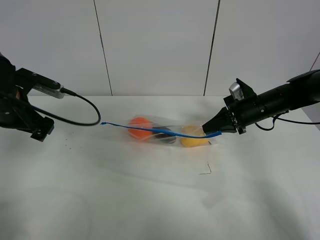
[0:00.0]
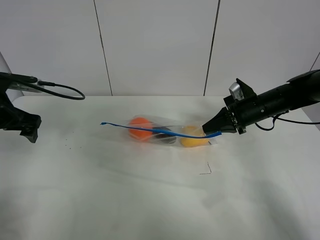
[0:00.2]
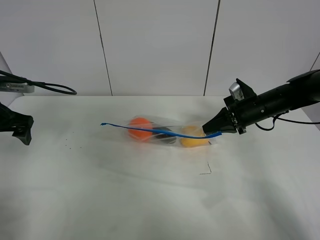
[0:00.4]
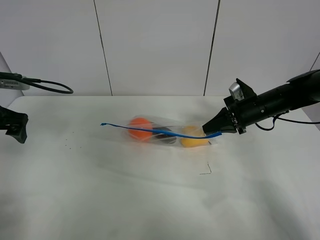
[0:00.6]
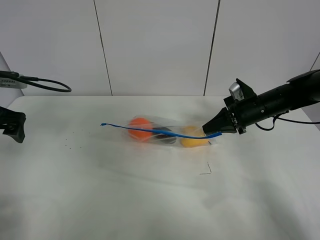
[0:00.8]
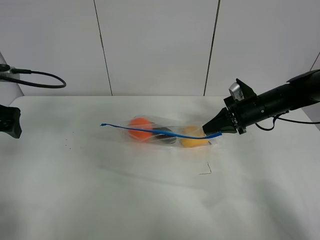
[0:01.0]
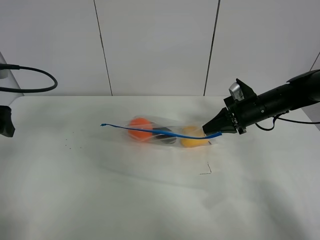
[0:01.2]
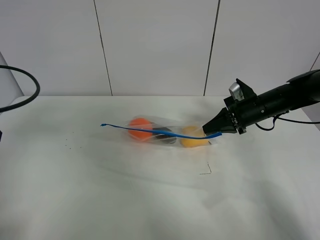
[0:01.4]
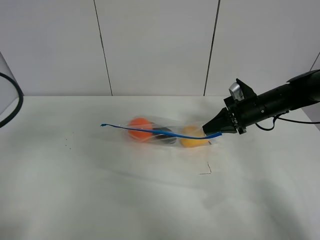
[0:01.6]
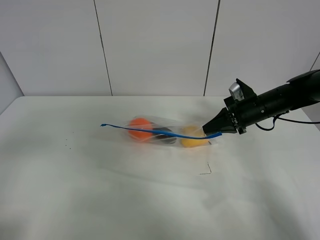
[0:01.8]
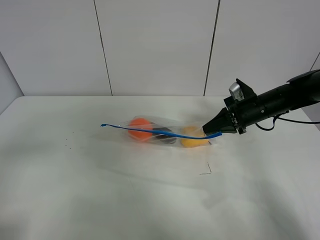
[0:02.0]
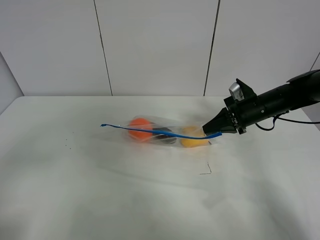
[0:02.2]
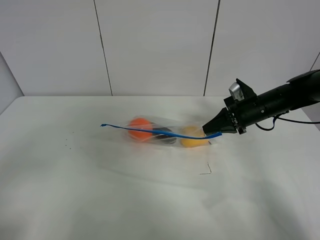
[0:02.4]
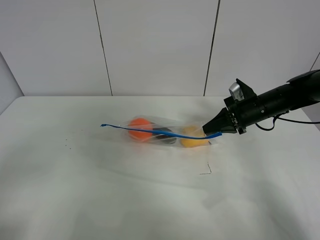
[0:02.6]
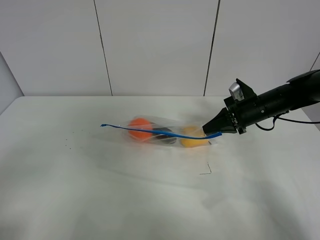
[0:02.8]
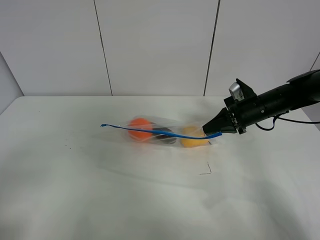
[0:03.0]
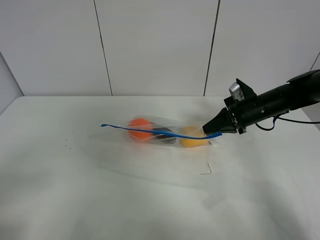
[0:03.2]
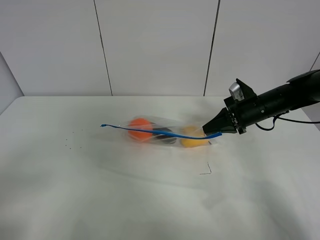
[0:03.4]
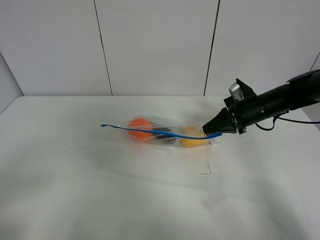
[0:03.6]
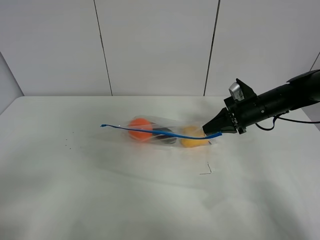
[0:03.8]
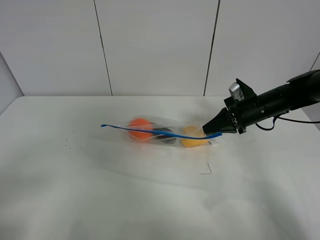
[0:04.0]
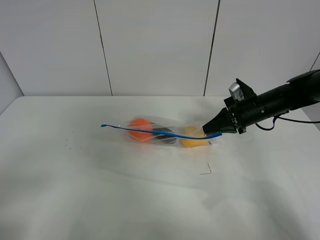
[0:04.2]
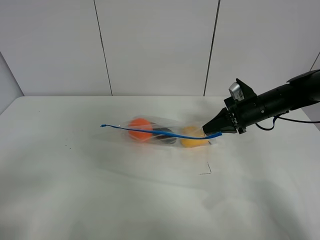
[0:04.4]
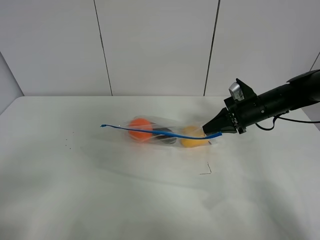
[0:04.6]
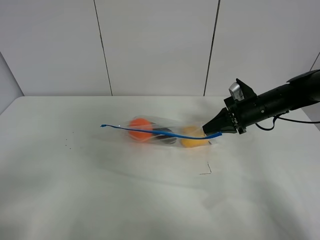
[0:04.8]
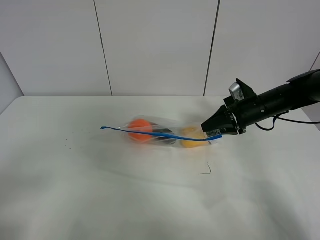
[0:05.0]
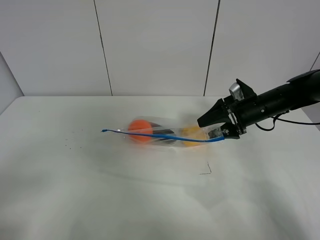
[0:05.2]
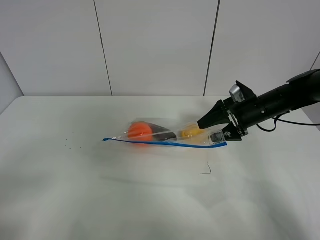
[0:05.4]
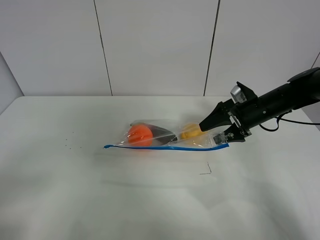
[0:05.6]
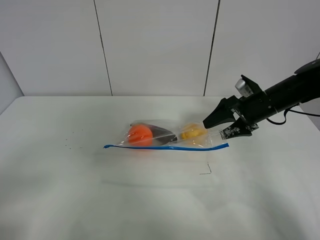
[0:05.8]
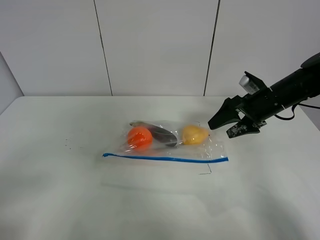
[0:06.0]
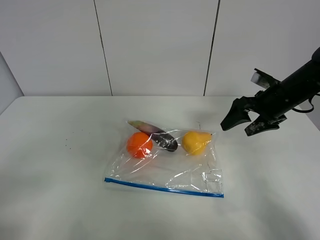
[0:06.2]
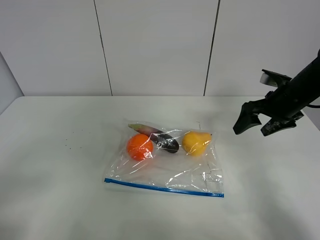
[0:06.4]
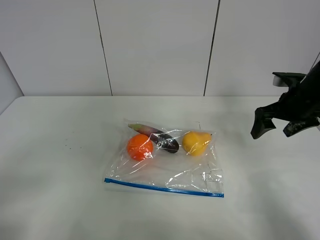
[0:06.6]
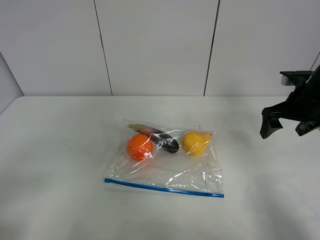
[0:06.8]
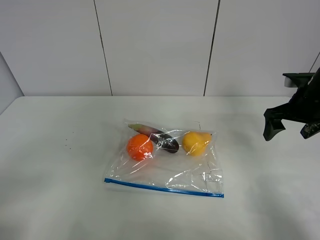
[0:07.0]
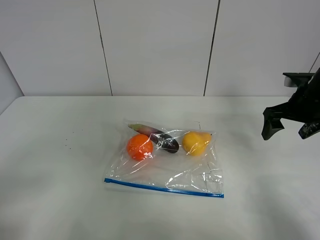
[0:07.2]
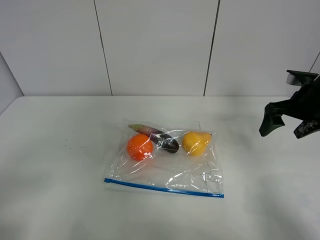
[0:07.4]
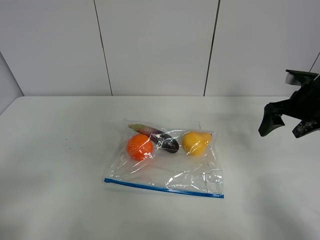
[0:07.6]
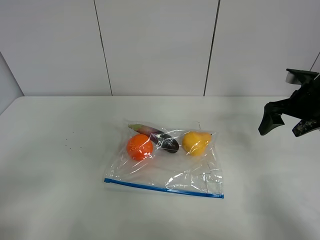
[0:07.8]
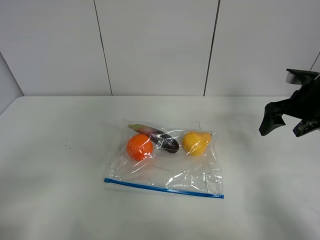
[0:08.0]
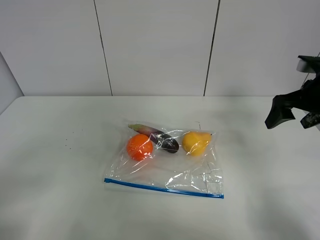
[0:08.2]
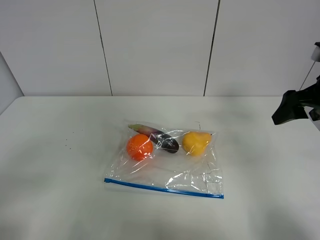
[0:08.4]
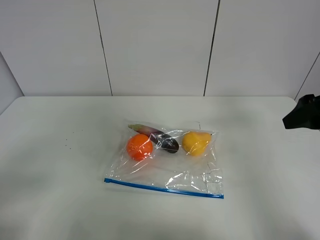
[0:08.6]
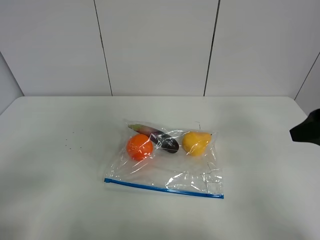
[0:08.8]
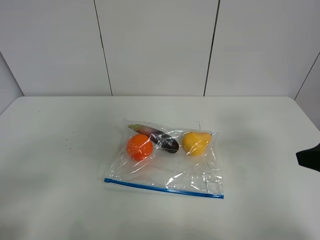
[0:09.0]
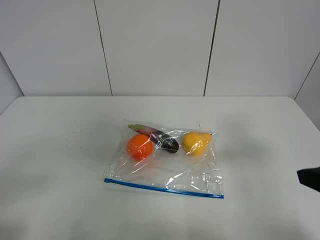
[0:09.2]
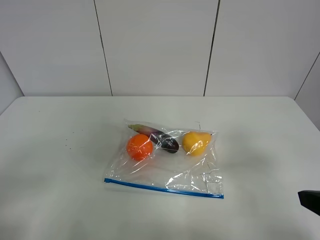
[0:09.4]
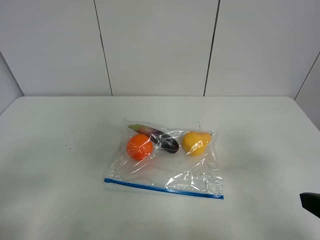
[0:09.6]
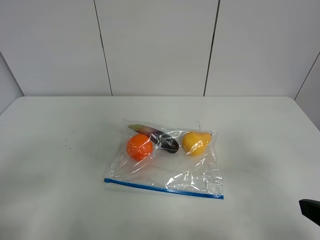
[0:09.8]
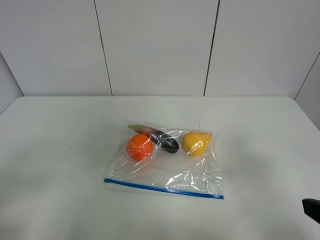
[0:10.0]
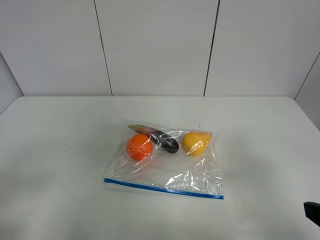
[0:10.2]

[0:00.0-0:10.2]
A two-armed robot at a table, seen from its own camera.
0:00.0 to 0:01.4: The left gripper travels backward, upward and to the left by about 15 cm.
0:01.4 to 0:03.0: The left gripper shifts about 20 cm backward.
0:04.4 to 0:05.8: The right gripper opens its fingers.
0:05.8 to 0:07.2: The right gripper is displaced to the right by roughly 5 cm.
0:07.2 to 0:08.8: The right gripper goes roughly 15 cm backward and upward.
0:08.8 to 0:10.2: The right gripper travels backward by about 15 cm.

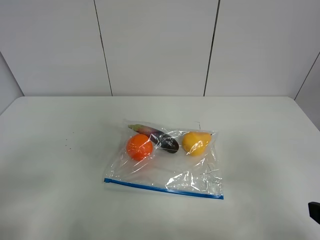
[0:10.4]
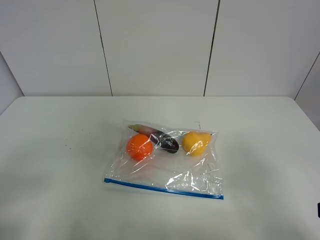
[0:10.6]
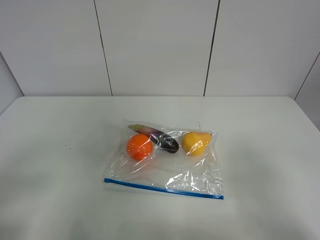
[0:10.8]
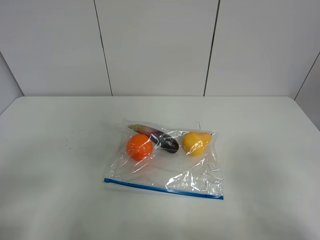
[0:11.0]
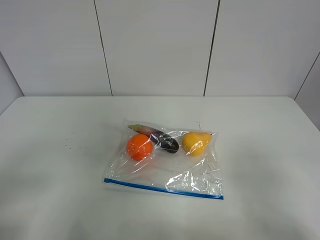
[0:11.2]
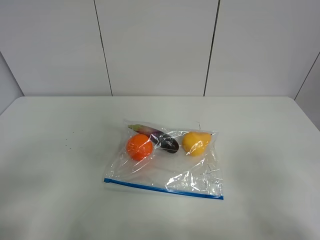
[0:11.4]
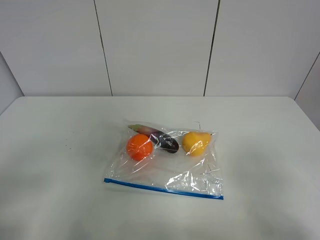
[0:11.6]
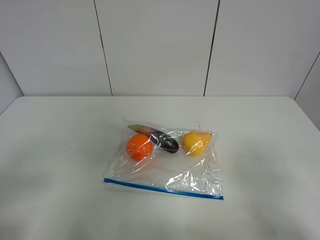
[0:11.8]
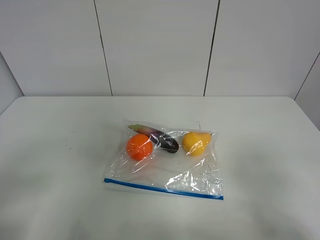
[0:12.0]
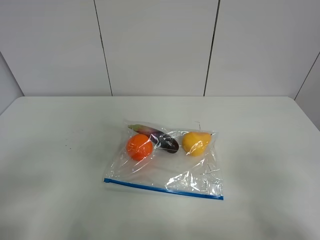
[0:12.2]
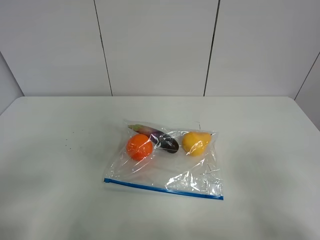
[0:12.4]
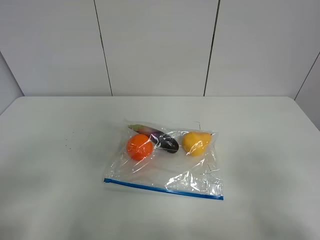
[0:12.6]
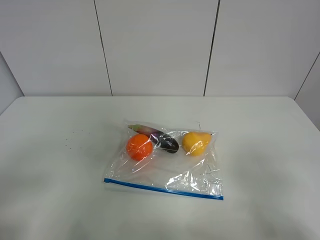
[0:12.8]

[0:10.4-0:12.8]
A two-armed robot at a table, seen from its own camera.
0:11.6 to 0:12.8: Neither gripper changes place.

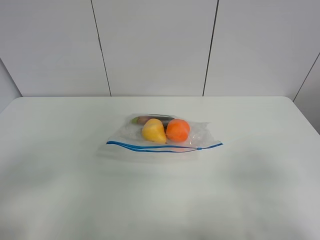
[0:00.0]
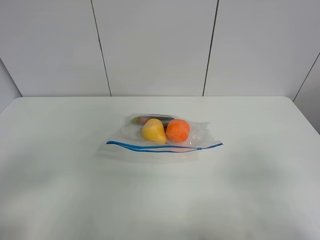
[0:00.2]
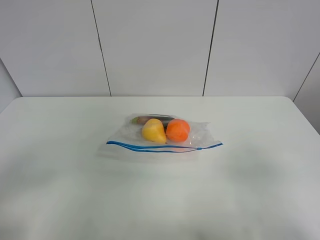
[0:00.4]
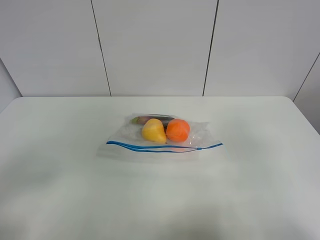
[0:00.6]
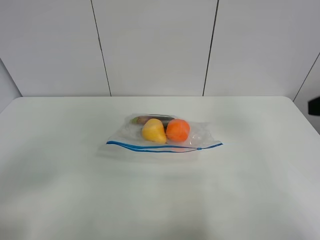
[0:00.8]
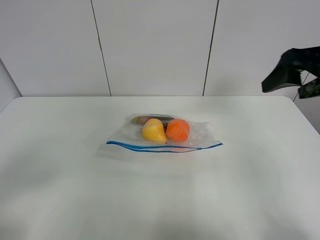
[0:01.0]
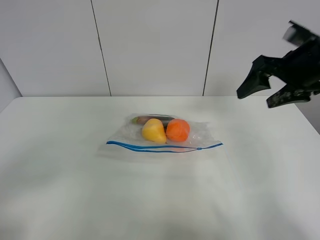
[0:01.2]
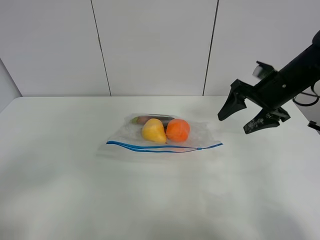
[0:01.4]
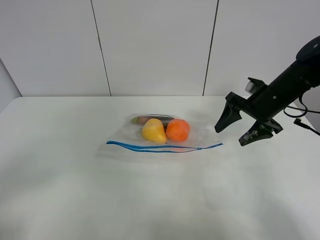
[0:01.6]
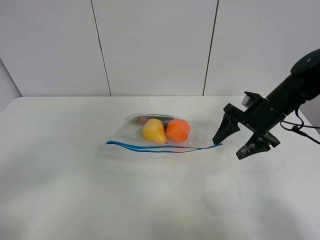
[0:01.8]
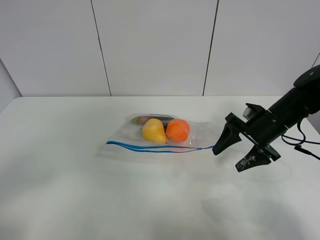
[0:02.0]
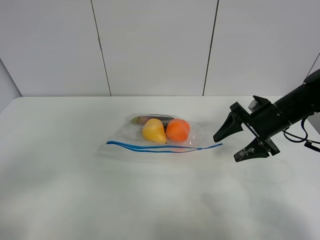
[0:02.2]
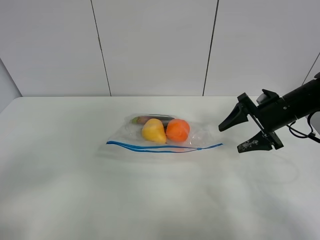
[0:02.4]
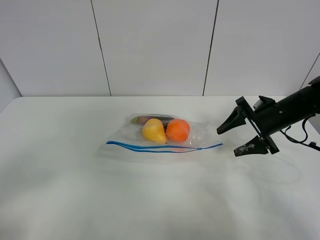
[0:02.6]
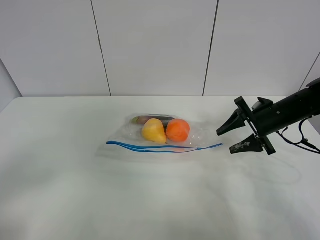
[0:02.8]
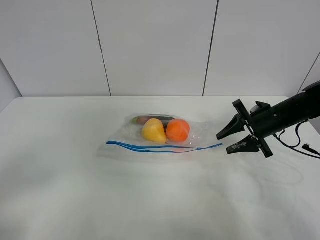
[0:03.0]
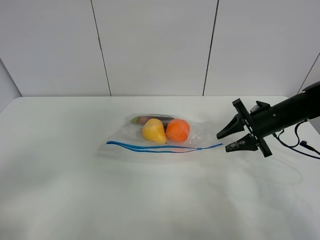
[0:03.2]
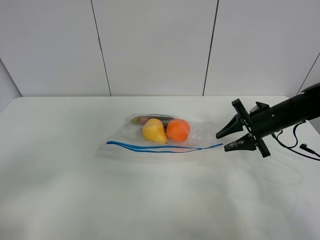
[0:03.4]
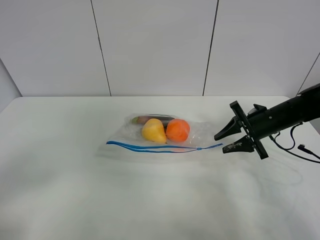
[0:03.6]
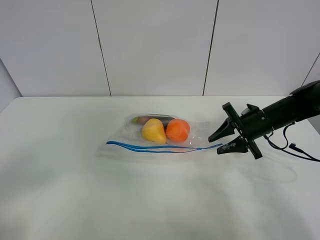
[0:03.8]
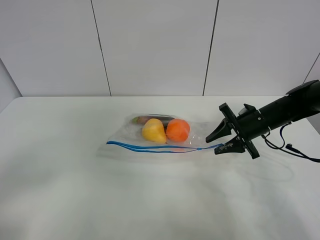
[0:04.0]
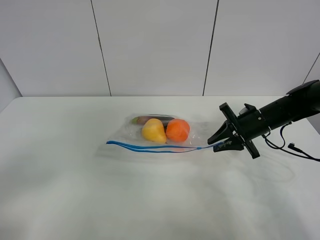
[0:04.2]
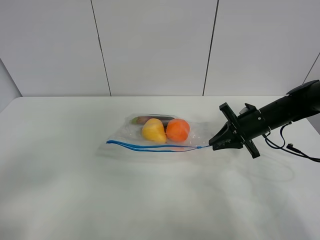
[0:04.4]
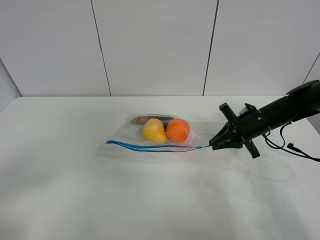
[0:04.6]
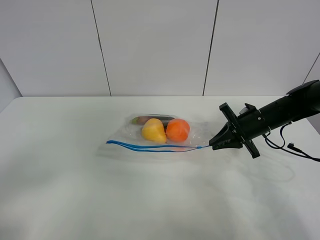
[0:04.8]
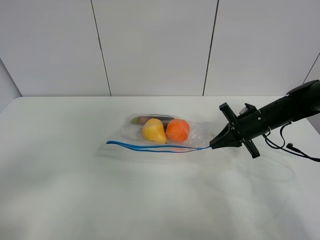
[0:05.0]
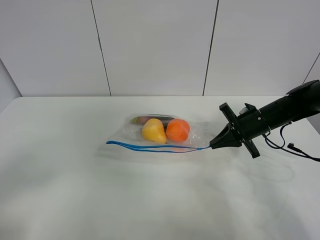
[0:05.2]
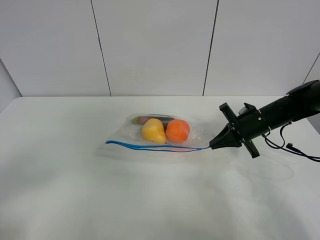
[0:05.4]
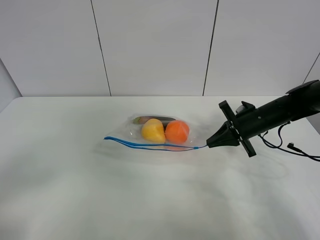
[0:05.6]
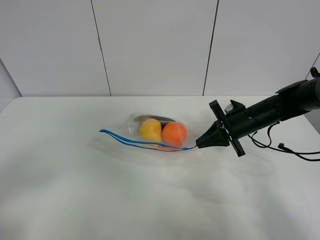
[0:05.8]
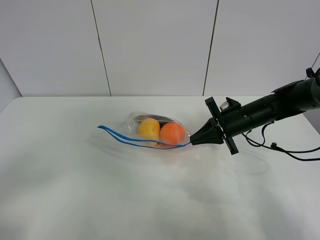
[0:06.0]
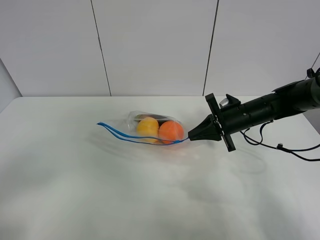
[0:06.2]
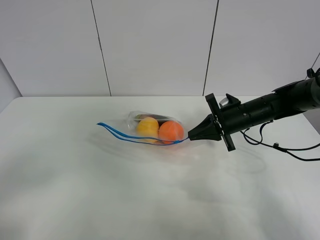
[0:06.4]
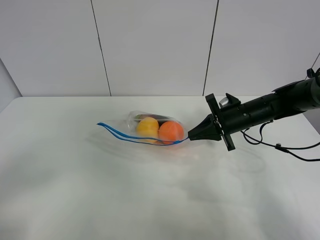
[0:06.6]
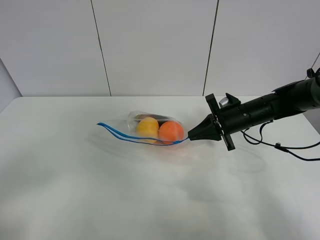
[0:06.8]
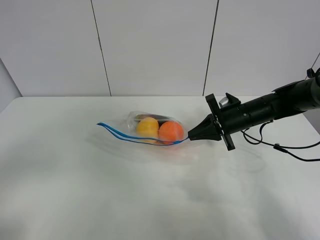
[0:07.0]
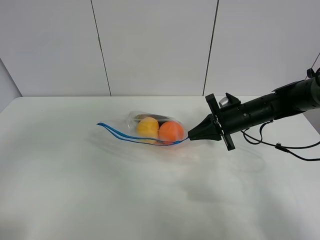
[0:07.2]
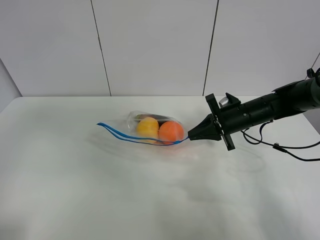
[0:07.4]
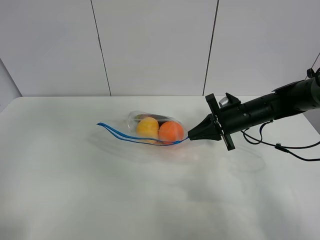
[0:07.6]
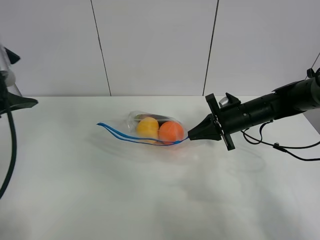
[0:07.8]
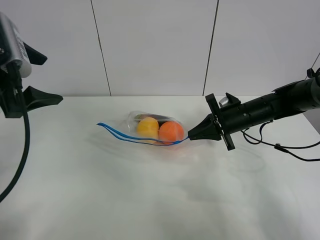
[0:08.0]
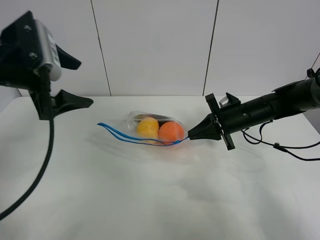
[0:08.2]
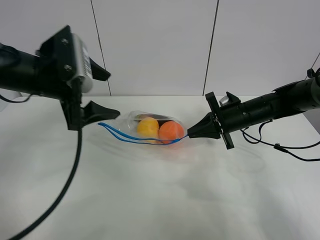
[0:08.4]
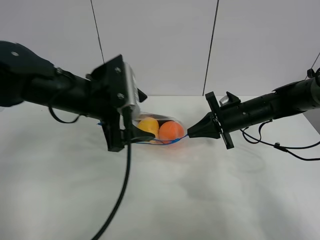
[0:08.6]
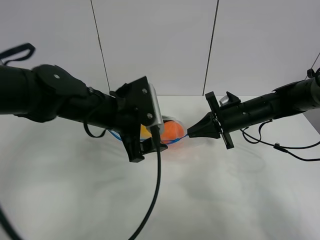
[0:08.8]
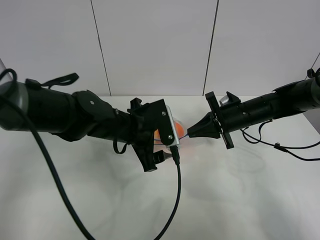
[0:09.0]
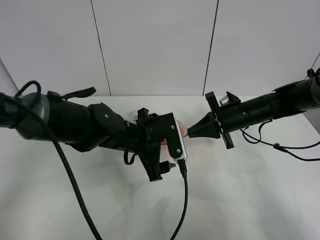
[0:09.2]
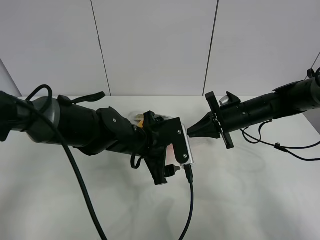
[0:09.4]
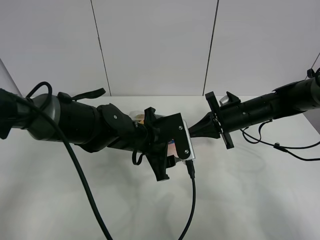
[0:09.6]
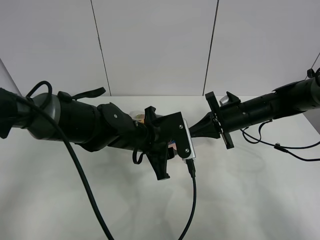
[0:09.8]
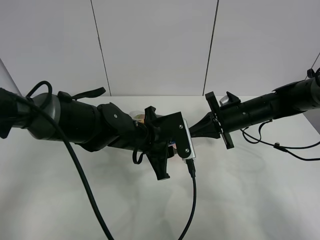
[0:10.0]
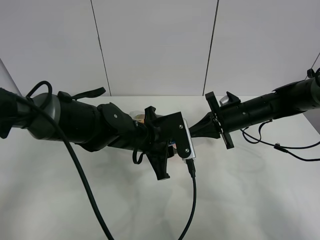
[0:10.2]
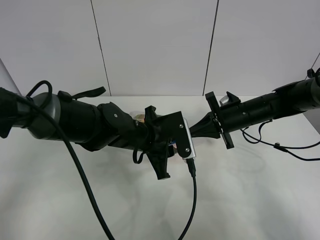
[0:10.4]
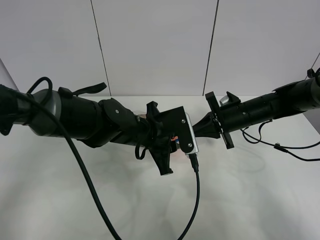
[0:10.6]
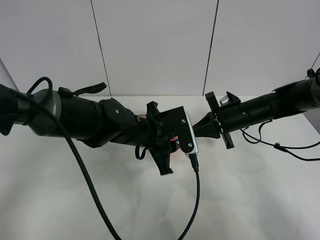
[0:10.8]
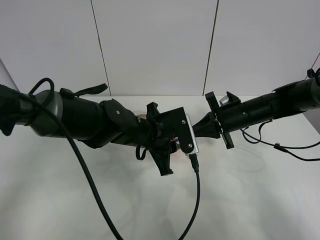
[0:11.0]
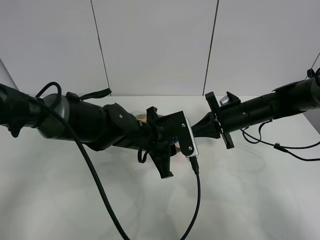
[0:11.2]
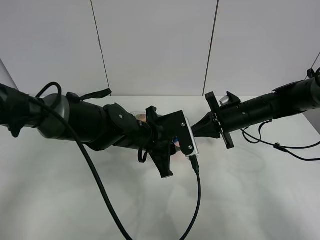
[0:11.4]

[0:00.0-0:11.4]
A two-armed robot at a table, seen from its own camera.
Step, 0:00.0 to 0:05.0: Grasp the fruit bag with right gripper.
Step, 0:05.2 to 0:06.8: Lift the fruit bag with your right gripper.
0:00.0 to 0:01.4: The right gripper shifts roughly 35 cm forward.
0:01.4 to 0:02.8: The right gripper goes approximately 10 cm downward.
0:02.8 to 0:04.2: The right gripper closes its fingers.
0:04.2 to 0:05.6: The grippers move only a little.
0:05.6 to 0:07.2: The left gripper is displaced upward and forward by about 10 cm.
0:07.2 to 0:08.6: The left gripper shifts about 30 cm forward, to the right and downward.
0:08.6 to 0:10.0: The left gripper shifts some 10 cm downward and to the right, and closes its fingers.
0:10.0 to 0:11.4: Both grippers stay about where they are.
